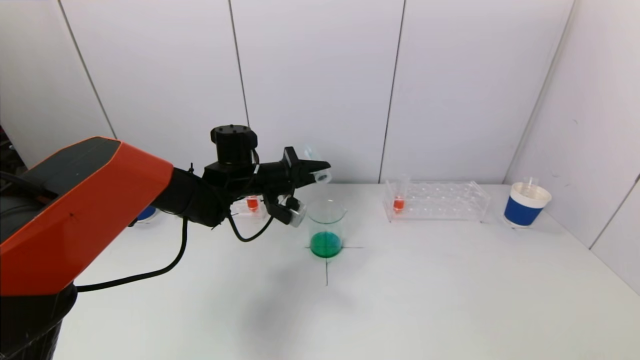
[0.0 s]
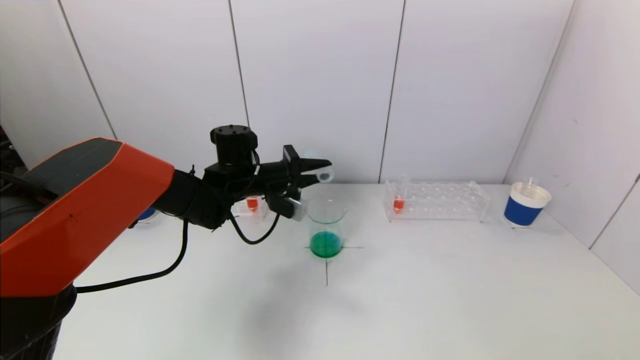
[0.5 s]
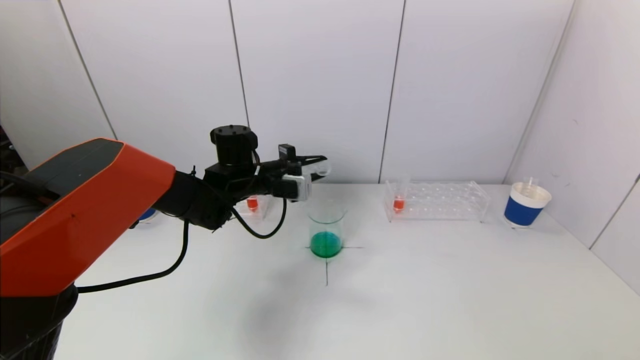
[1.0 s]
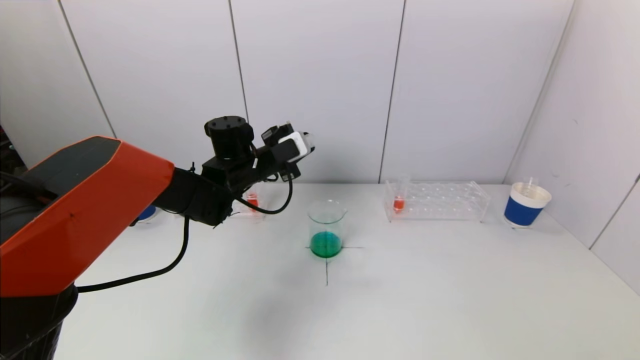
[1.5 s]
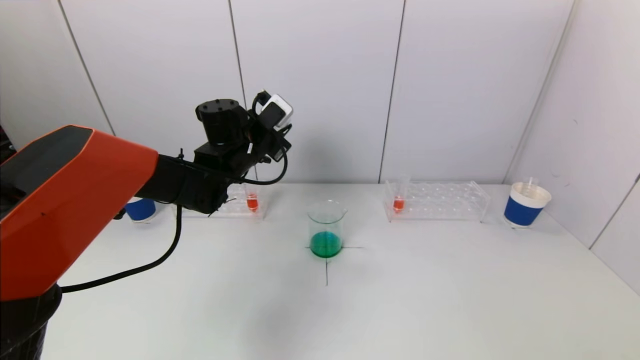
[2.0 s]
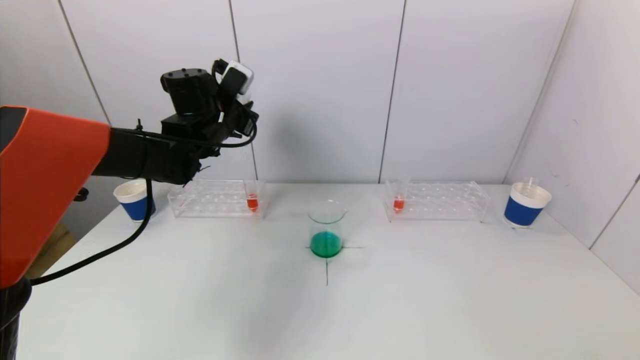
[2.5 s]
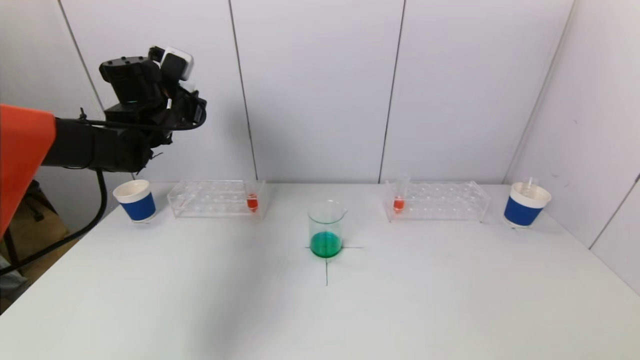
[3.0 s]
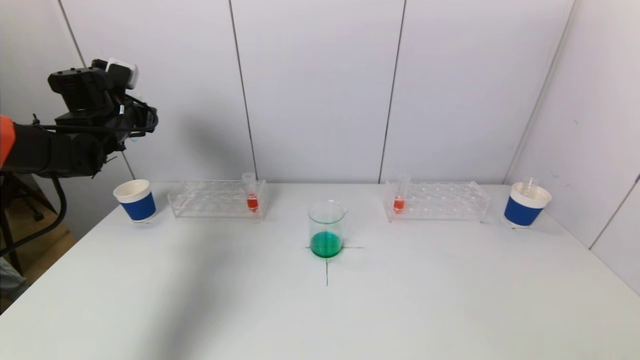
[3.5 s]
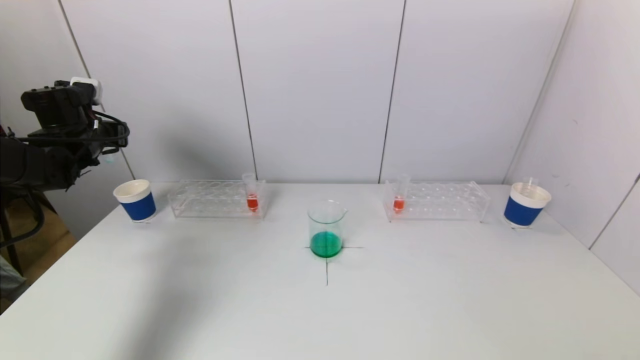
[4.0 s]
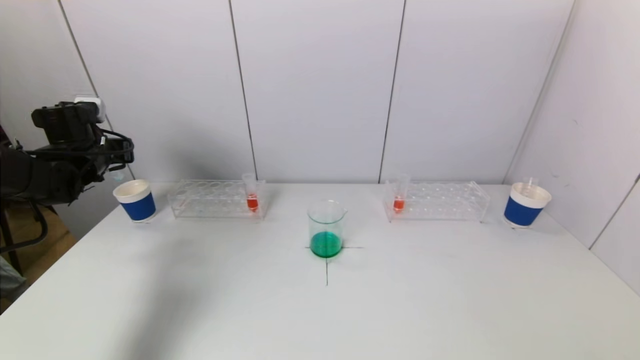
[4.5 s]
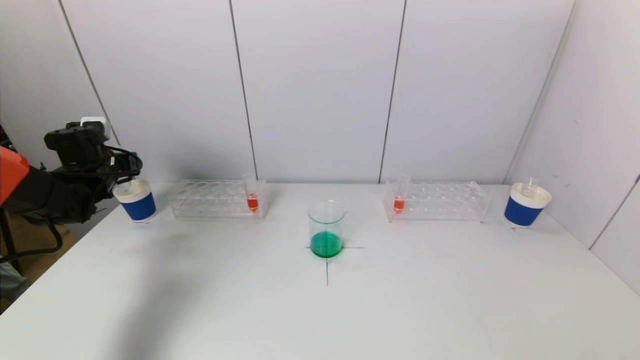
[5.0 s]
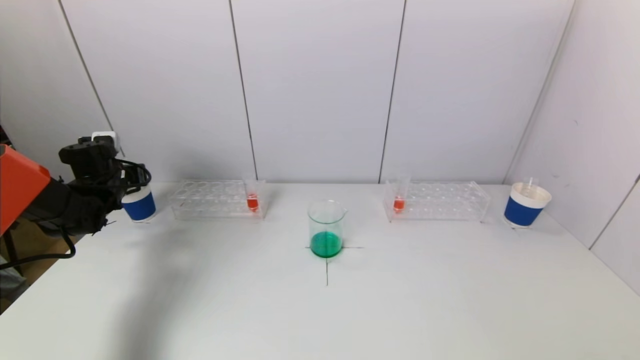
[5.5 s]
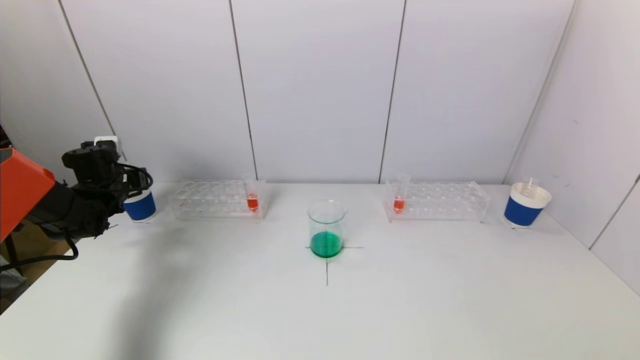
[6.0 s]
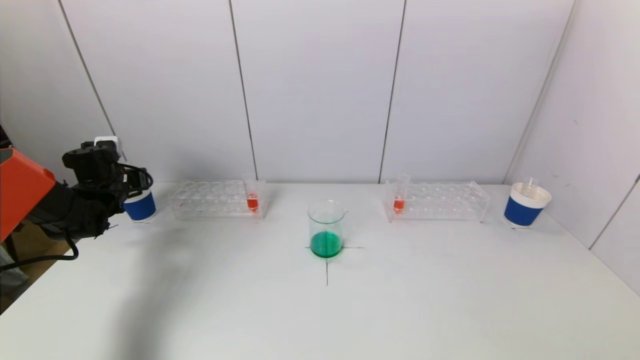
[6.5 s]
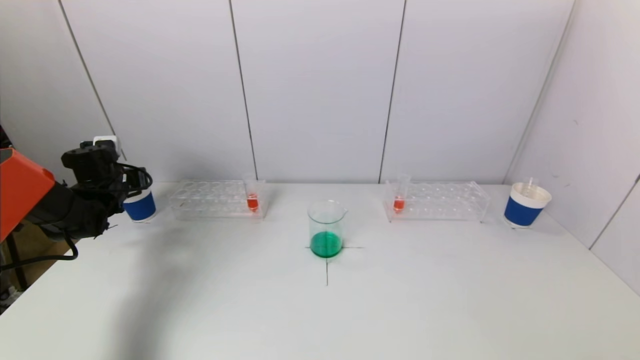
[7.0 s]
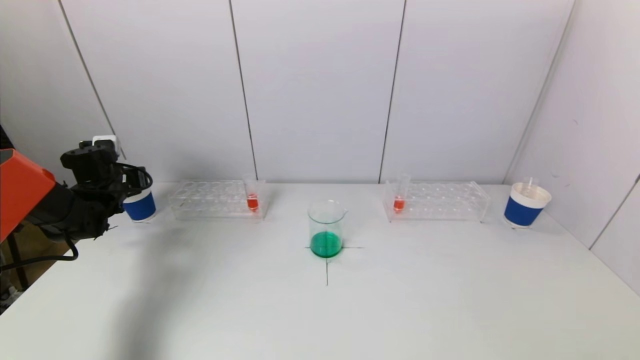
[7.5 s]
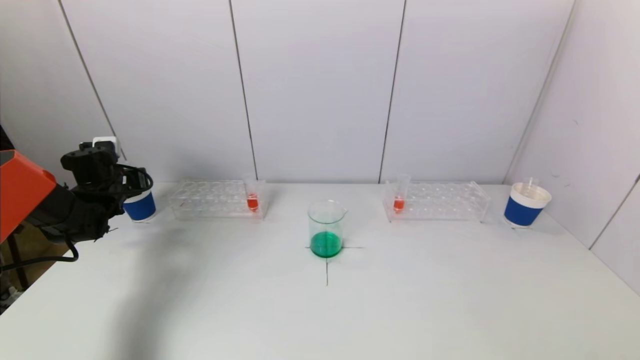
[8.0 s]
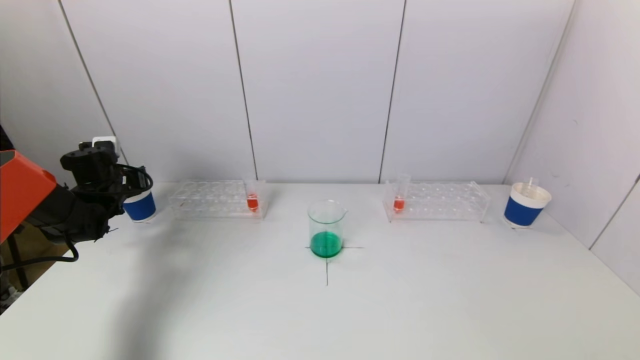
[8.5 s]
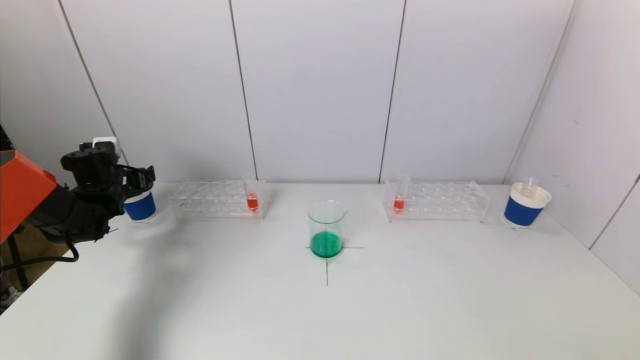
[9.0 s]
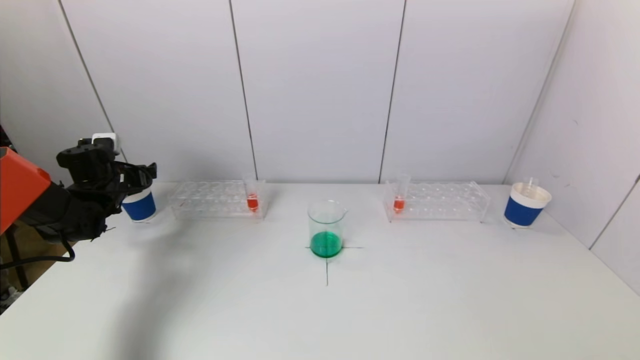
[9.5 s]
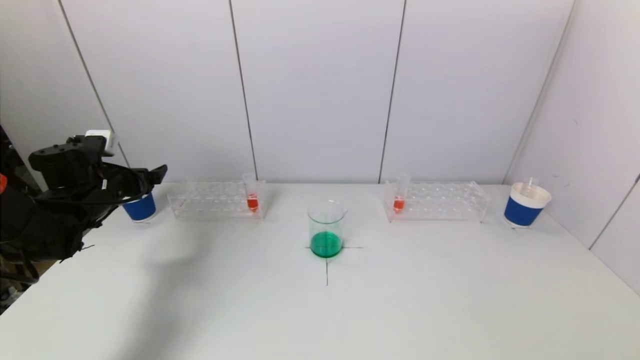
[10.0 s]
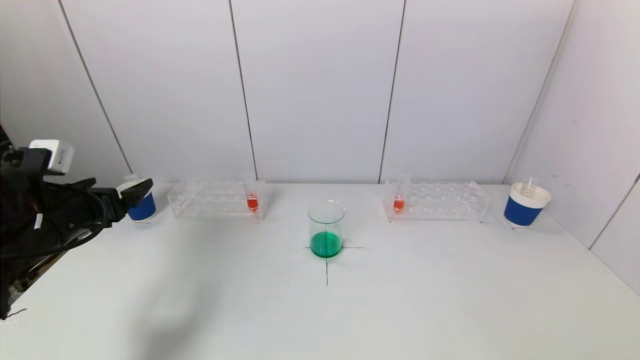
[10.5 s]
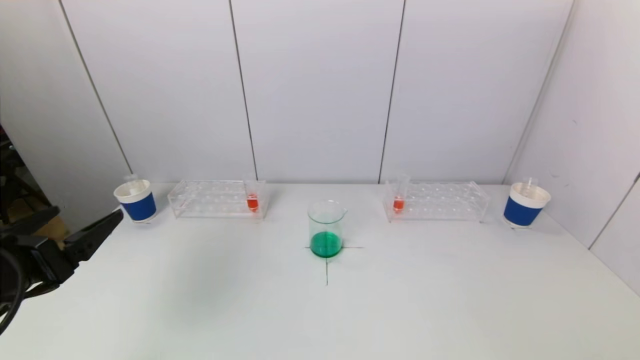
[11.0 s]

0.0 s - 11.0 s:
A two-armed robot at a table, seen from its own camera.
Task of the whole recording: pick up a test tube with pigment on left test tube rack and a test tube with pigment on right test tube rack by grippers and pour them into the beaker.
Step, 0.0 s - 8.5 s: Place the test tube into the paper cup with the left gripper.
0.0 s - 2.0 s: The left gripper goes approximately 5 cm upward.
2.0 s - 3.5 s: The left gripper shifts approximately 20 cm to the left.
3.5 s - 5.5 s: The left gripper travels downward by approximately 15 cm.
5.5 s - 7.5 s: Neither gripper changes place.
9.0 s - 11.0 s: The left gripper heads backward, covering approximately 30 cm.

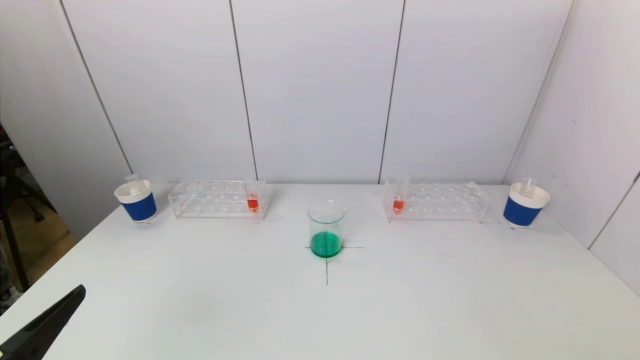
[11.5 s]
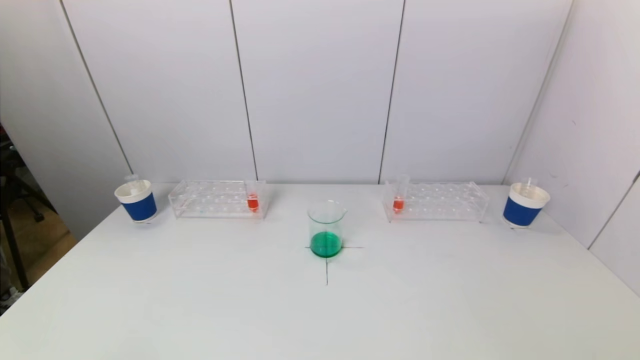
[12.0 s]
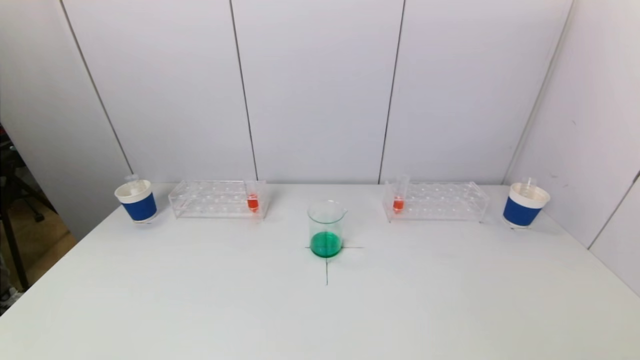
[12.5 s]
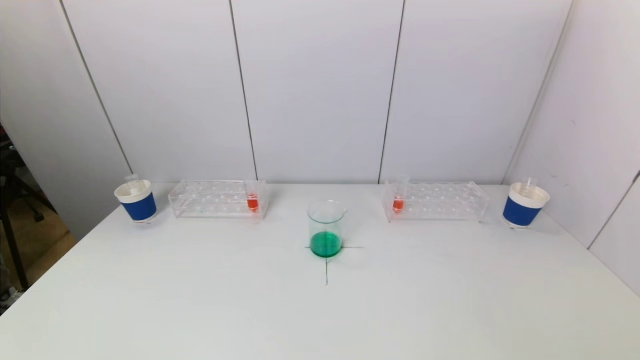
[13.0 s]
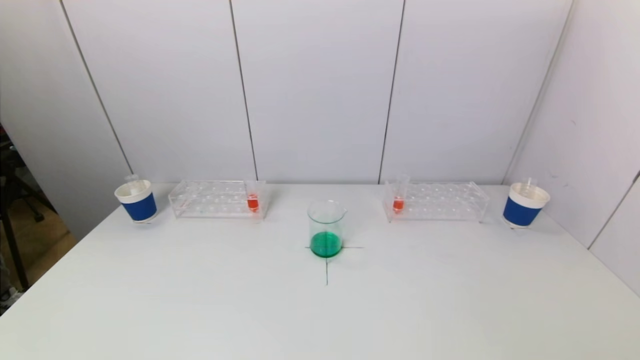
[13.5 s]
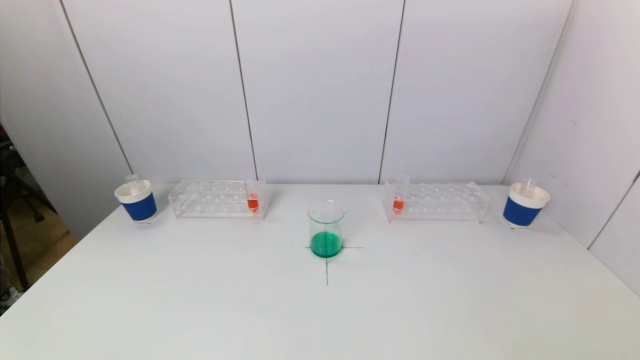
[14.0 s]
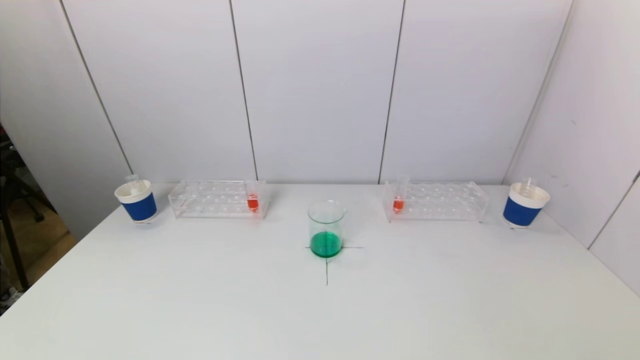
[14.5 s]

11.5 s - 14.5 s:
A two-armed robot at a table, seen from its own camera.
Task of the whole recording: pick up a test tube with pigment on left test tube rack and a test tube with pigment on right test tube rack by grippers and pour them into the beaker.
11.5 s - 13.0 s: The left gripper travels downward and backward by approximately 10 cm.
13.0 s - 14.5 s: Both grippers stay about where they are.
